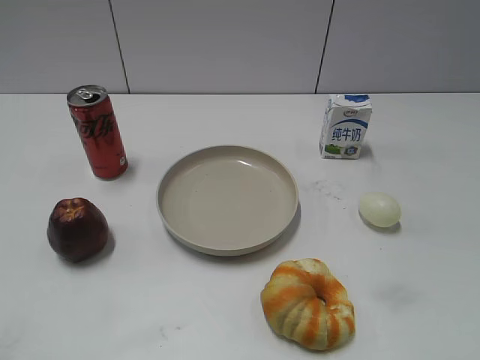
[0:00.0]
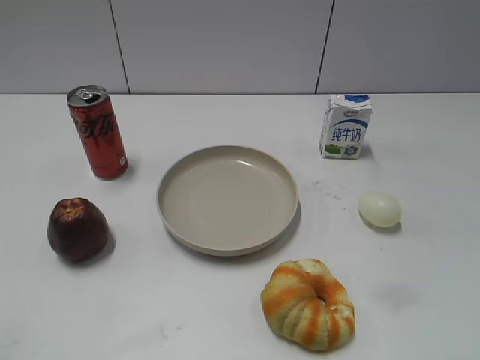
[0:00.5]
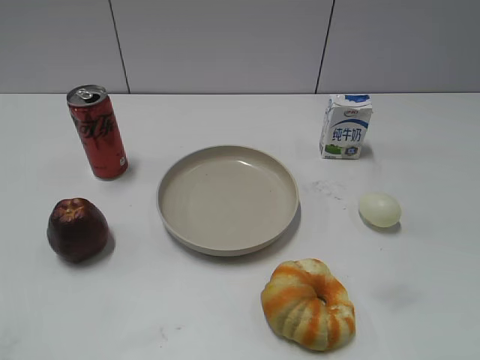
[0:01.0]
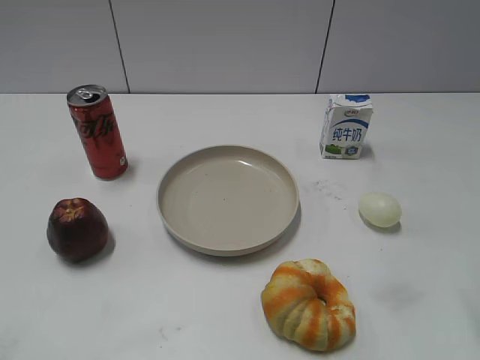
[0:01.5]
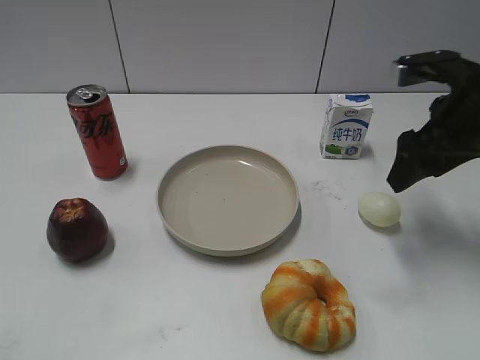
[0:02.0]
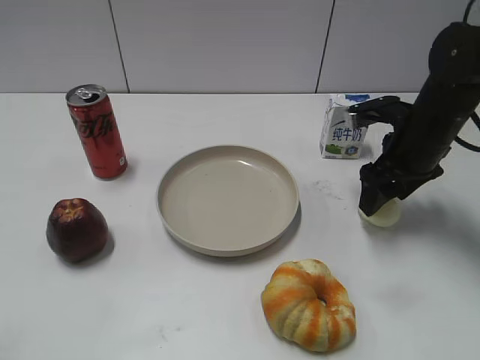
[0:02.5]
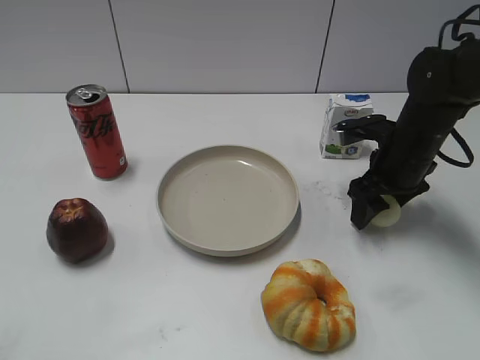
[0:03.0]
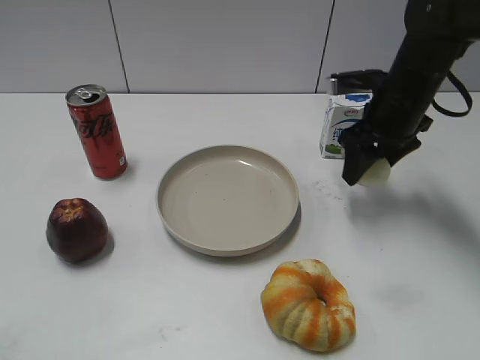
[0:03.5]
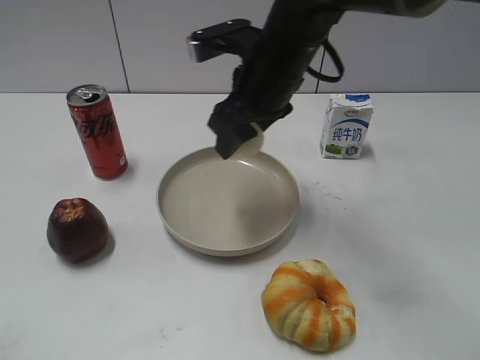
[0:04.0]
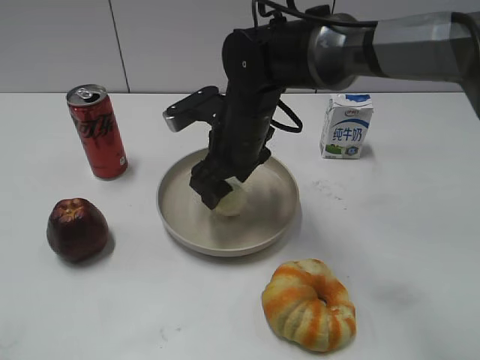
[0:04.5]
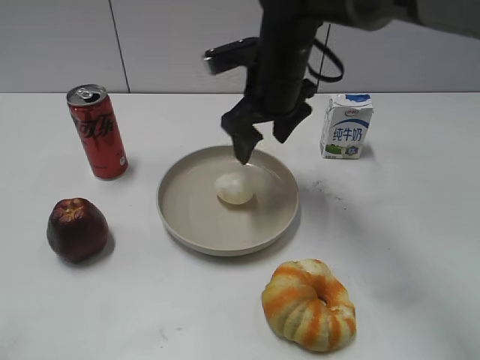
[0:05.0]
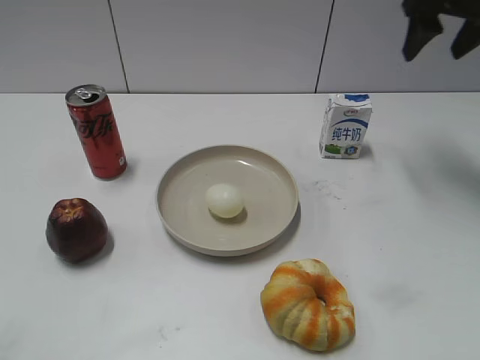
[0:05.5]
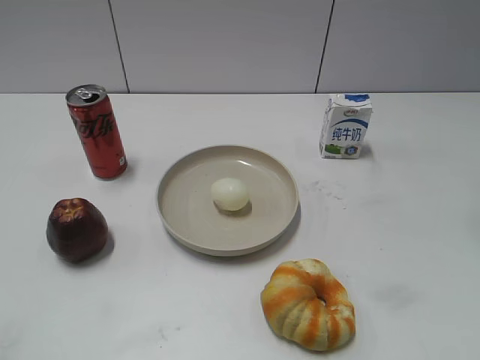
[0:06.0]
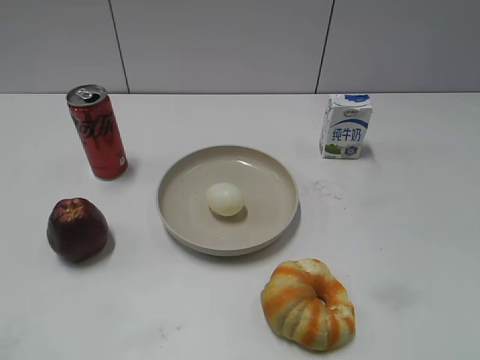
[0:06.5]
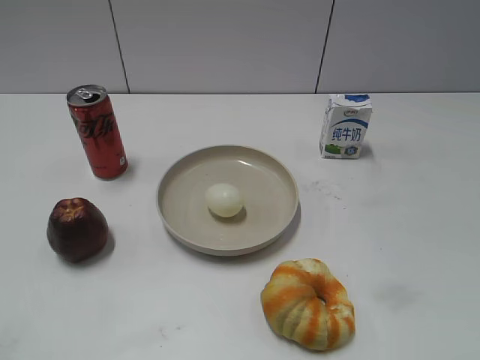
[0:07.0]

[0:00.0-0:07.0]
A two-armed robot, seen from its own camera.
Step, 0:00.0 to 0:03.0: Grasp the egg with right gripper.
Step, 0:03.5 to 0:04.5: Place the egg on the plate with right gripper.
0:02.0 to 0:03.5: The right gripper heads forward and to the left, covering some 10 cm, and closes up.
0:03.5 to 0:05.0: The right gripper travels to the left by roughly 15 cm, and opens.
0:05.0 to 0:07.0: The right gripper shifts approximately 40 cm backward and to the right.

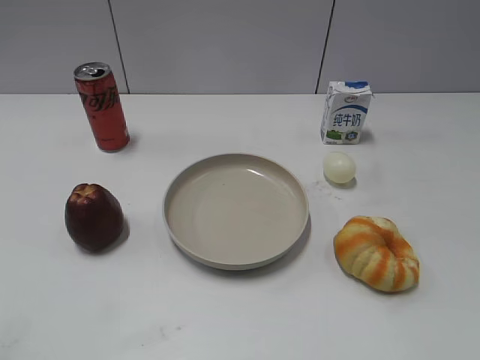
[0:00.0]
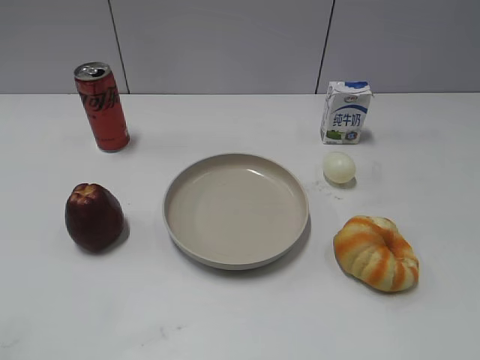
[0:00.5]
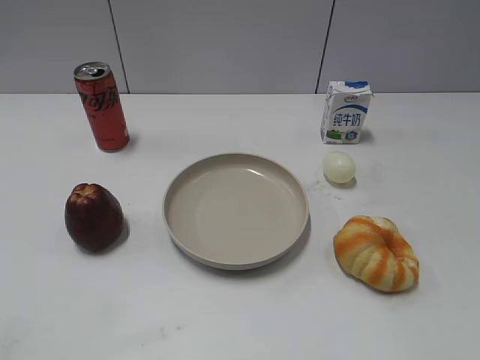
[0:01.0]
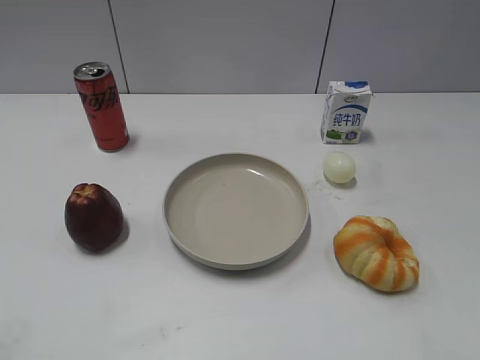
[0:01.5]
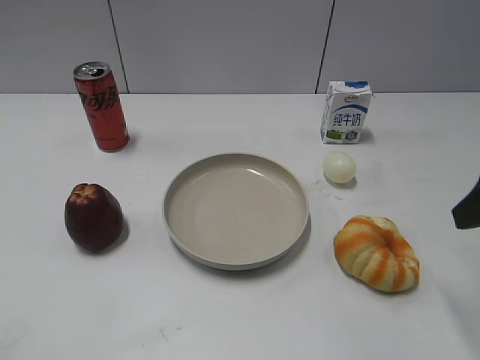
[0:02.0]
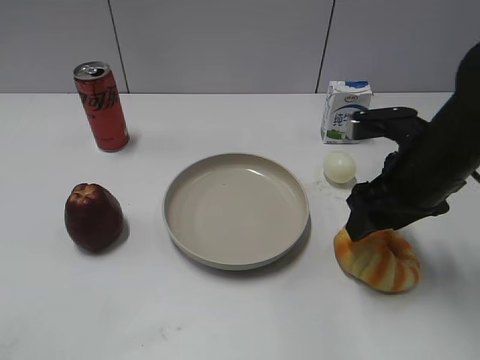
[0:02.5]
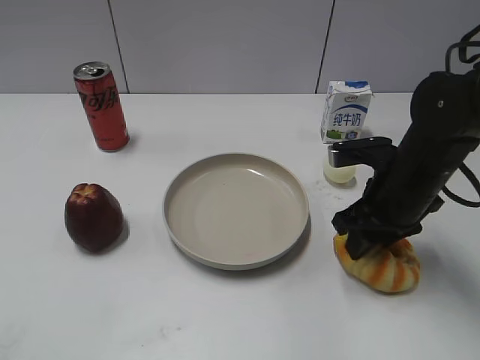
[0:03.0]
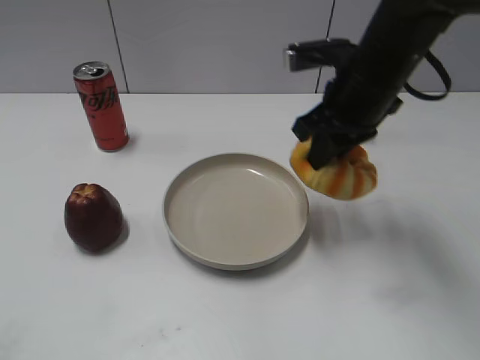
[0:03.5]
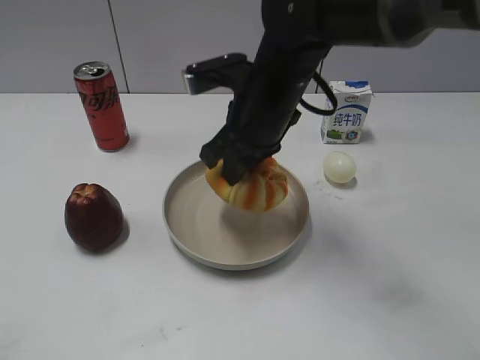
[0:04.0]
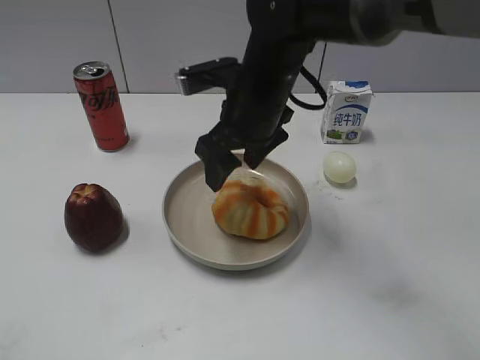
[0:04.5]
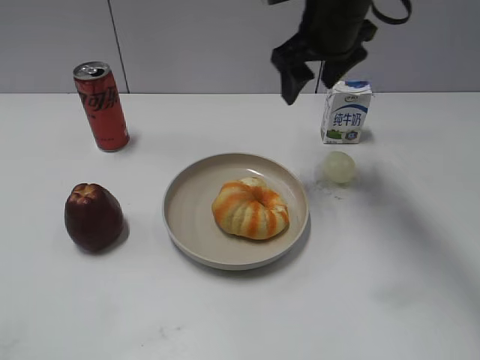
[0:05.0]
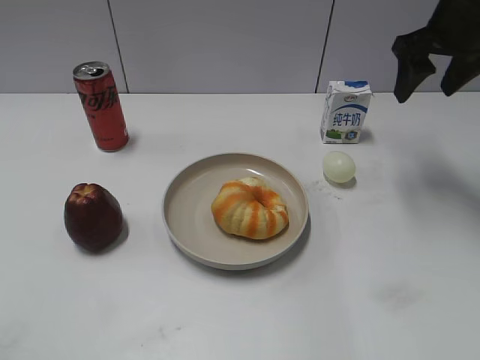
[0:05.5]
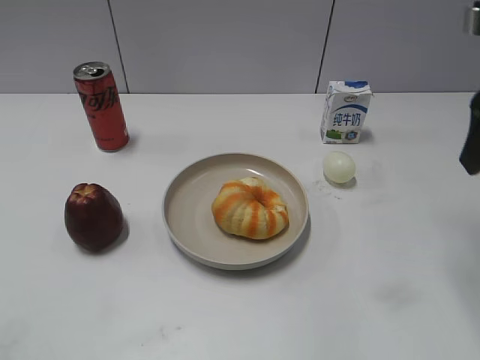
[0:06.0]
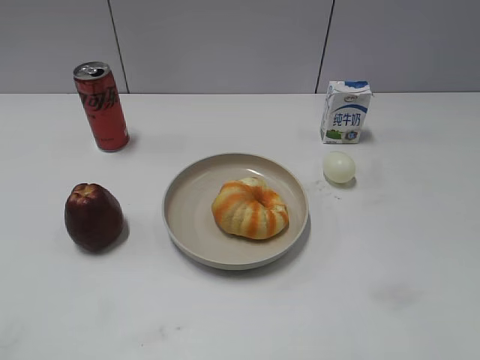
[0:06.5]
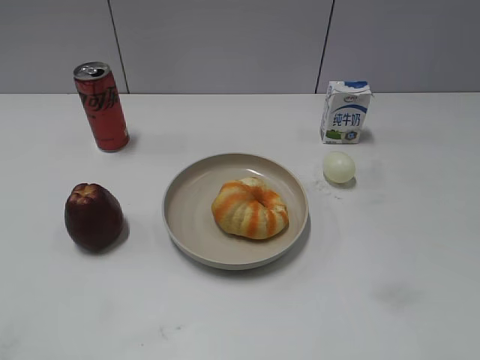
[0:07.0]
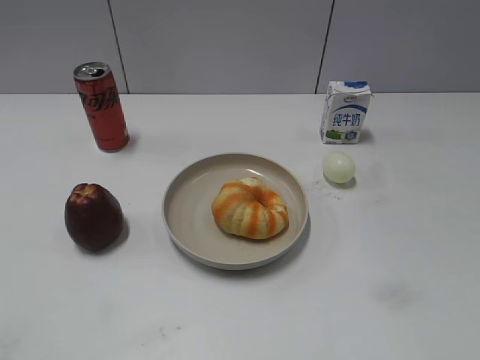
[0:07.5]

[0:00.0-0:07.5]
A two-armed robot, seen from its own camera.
Step, 0:01.5 to 0:03.0: Grasp the round bread with right gripper.
Step, 0:03.5 to 0:04.5: Place the round bread on the plate with right gripper.
0:02.0 to 0:04.0: The right gripper shifts approximately 30 cm to the left and forward, and closes up.
0:04.0 to 0:05.5: The right gripper travels to the right and upward by approximately 25 cm, and opens its fingers.
0:05.5 to 0:07.5: The right gripper shifts some 40 cm backward.
